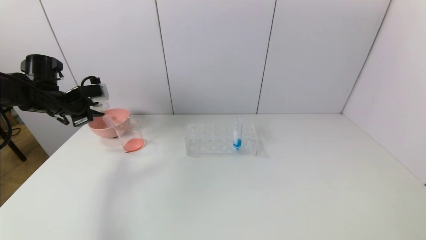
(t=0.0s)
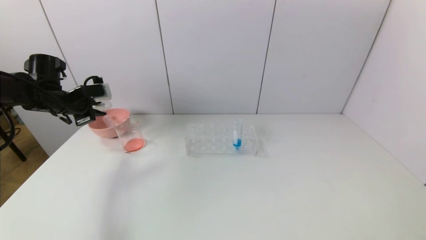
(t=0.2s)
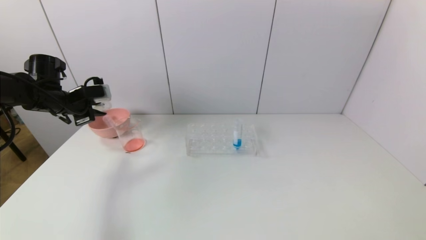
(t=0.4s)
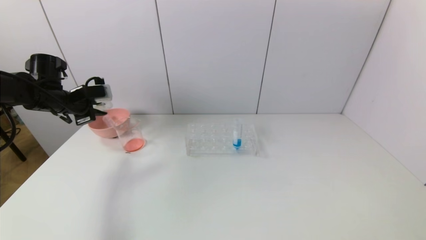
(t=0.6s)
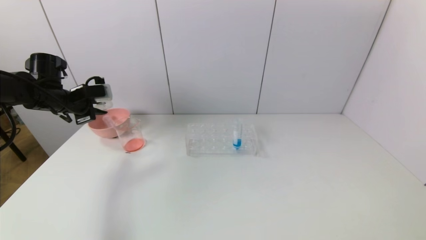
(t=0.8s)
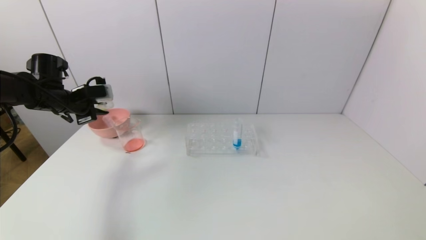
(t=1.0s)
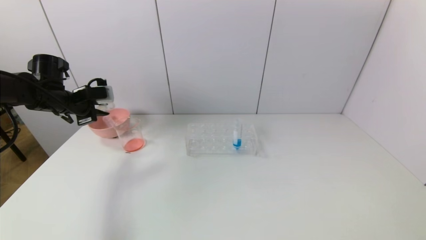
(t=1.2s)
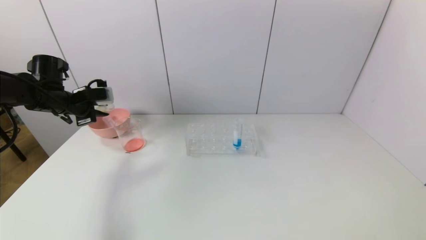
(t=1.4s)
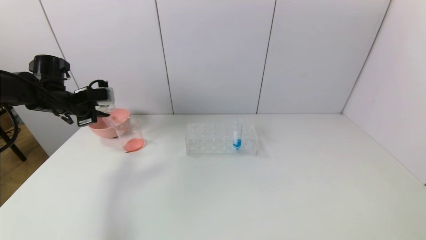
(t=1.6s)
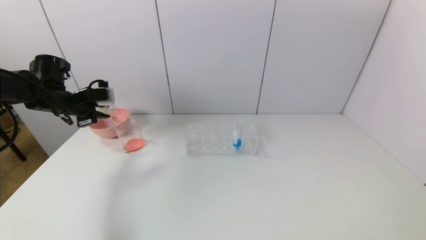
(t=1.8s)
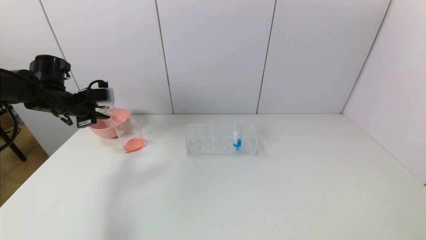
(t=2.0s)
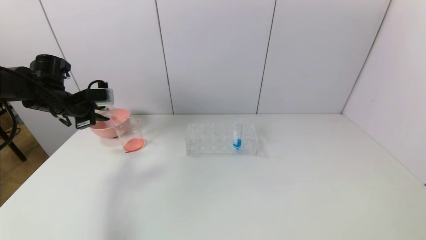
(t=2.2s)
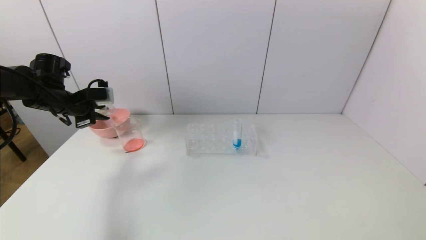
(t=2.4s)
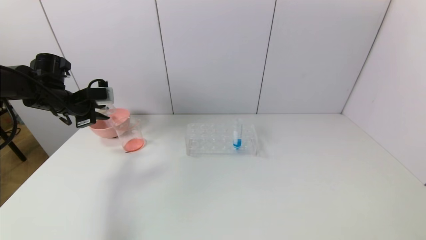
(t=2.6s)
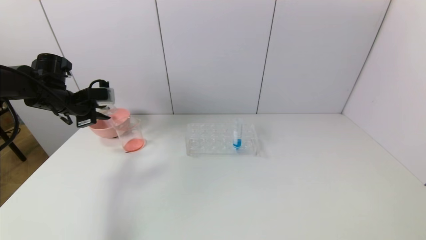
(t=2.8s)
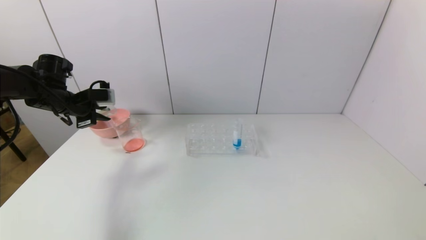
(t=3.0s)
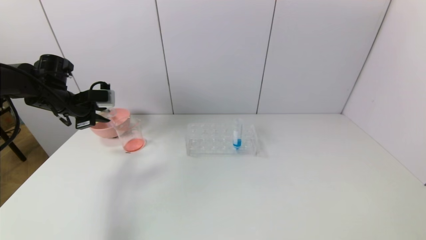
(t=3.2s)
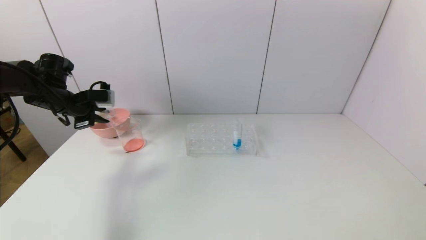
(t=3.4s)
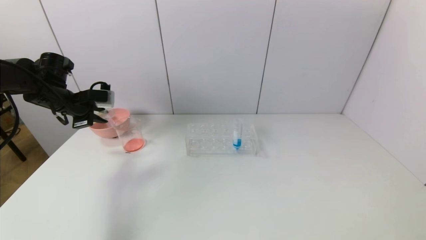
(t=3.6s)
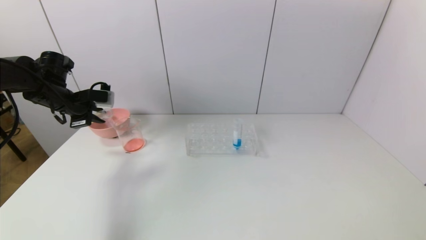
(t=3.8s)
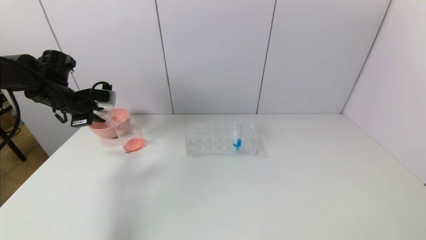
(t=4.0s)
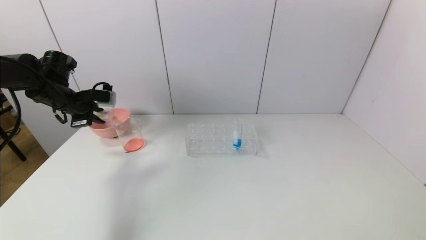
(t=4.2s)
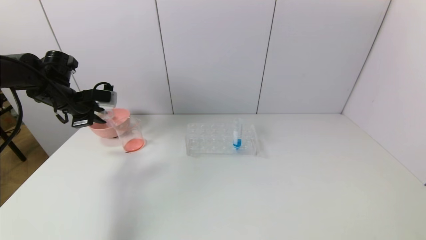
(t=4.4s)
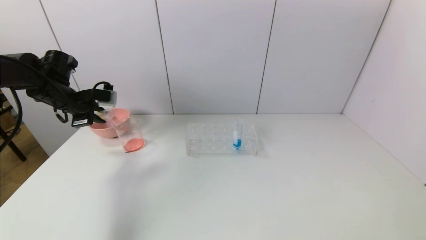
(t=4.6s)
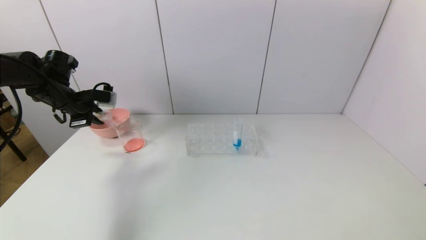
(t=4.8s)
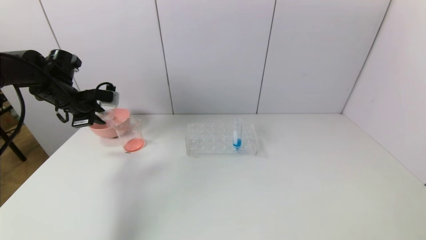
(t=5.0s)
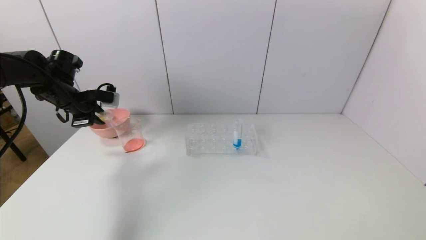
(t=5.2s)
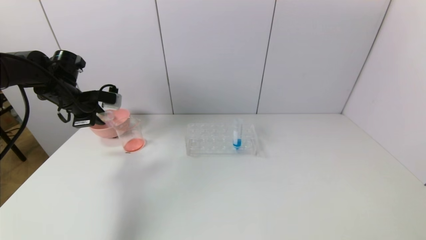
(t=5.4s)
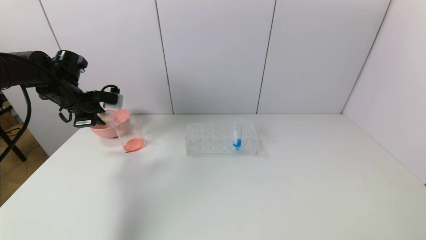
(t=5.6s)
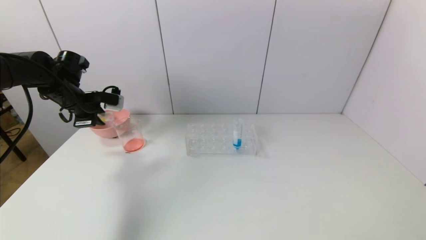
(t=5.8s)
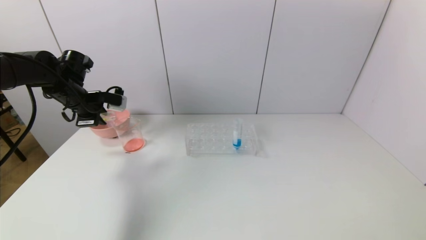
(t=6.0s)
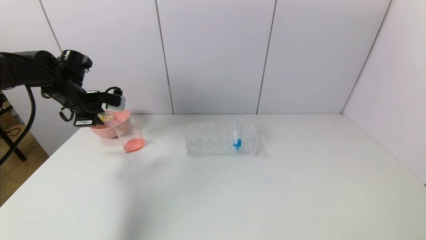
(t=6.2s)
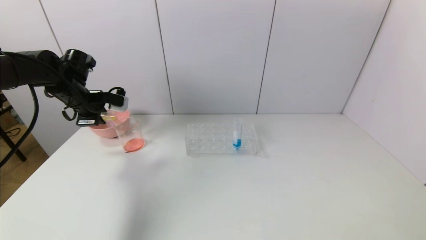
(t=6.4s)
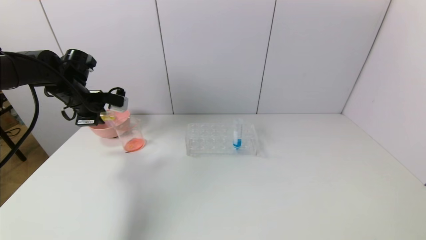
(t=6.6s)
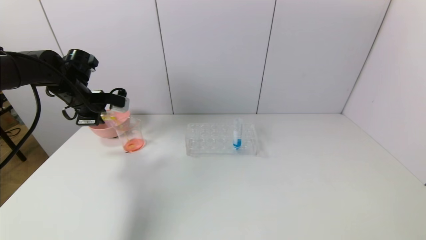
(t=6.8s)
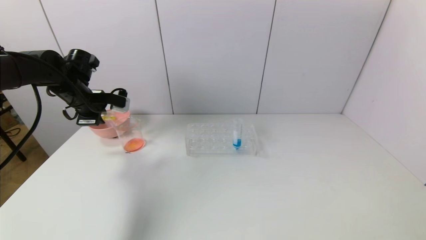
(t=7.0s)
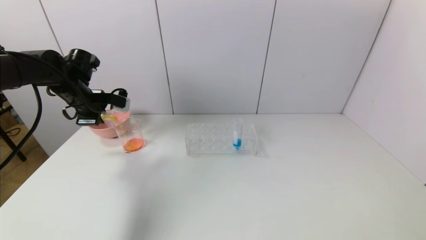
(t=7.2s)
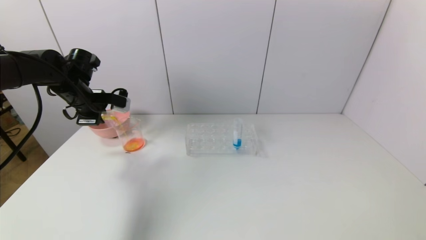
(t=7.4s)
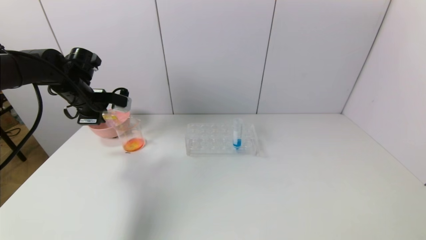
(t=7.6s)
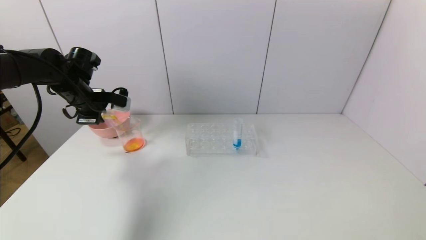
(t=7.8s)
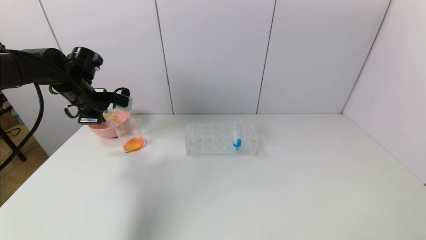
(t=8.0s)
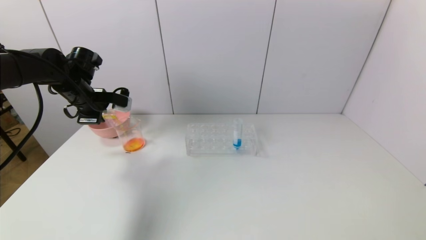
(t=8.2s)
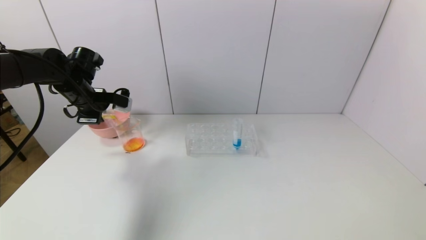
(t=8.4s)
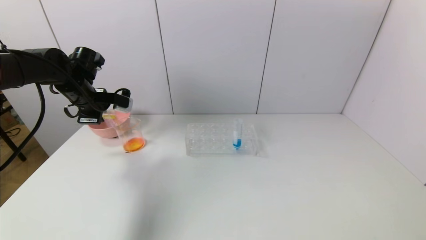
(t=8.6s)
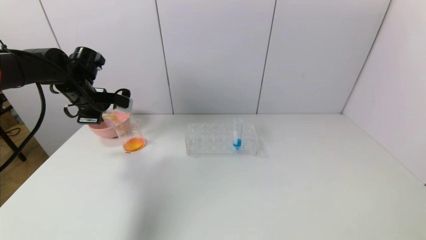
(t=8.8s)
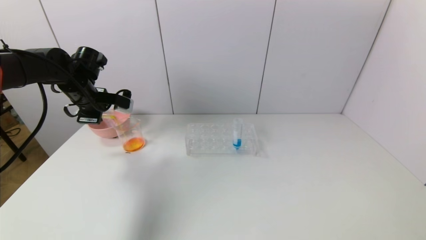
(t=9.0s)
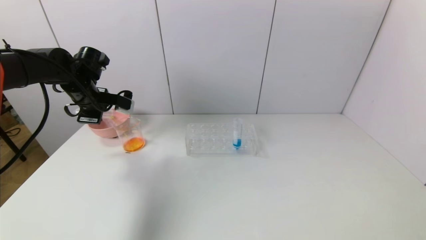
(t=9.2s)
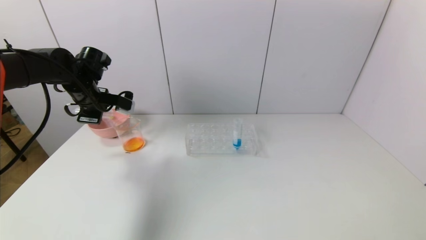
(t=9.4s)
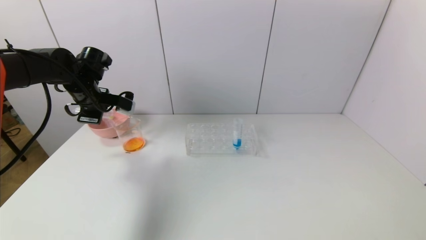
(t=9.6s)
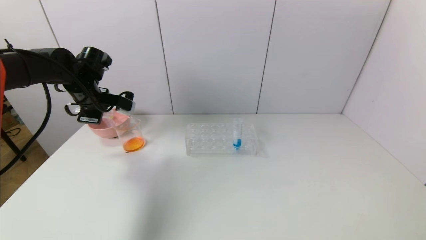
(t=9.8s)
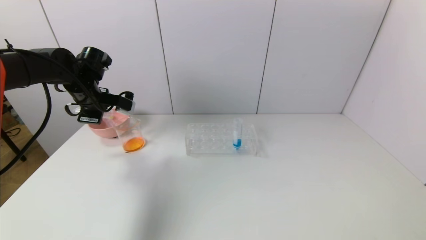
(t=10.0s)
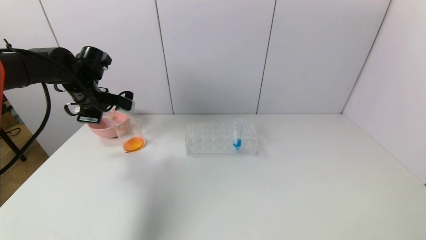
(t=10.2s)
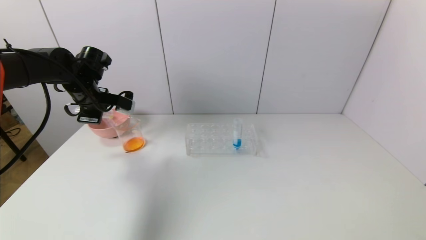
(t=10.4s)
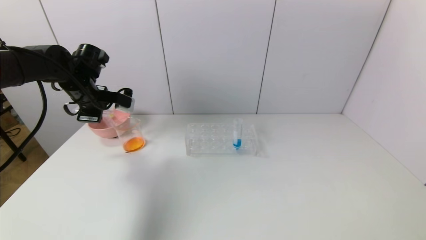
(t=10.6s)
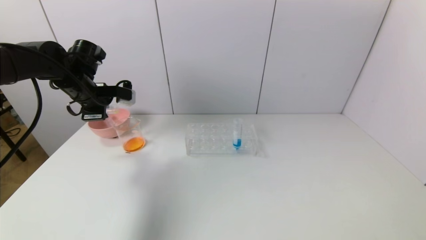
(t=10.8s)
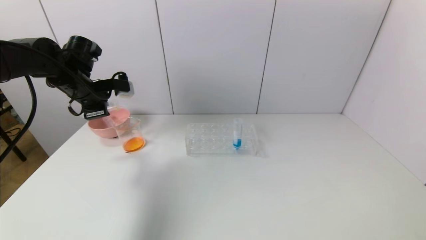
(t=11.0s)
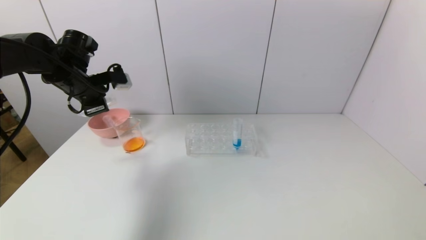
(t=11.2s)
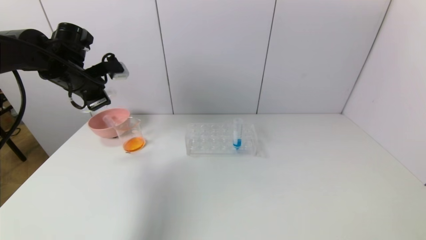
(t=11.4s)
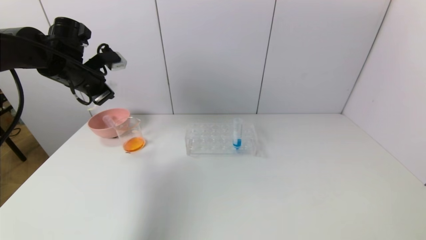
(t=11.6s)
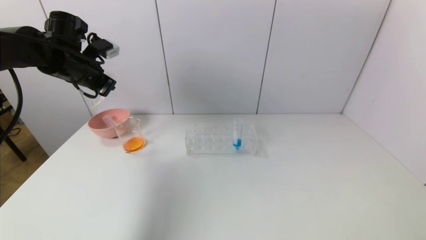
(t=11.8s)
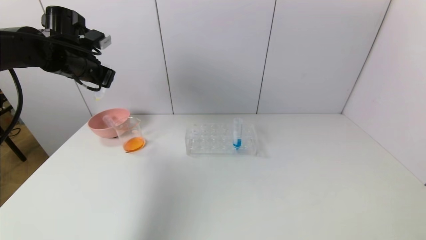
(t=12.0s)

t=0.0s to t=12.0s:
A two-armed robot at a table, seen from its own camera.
Task of the whole recording: pick up the test tube with yellow pigment and the test tube with red pigment by grippers and pour them into the beaker.
Step, t=0.0s to t=10.6s: Pour the yellow reagent into the graduated cylinder with the left gripper.
t=0.0s to t=4.4s: There are only small adjustments of the grippers.
t=4.4s to t=7.6s: The grippers stay close to where they were, moving slightly.
t=7.6s to t=9.0s: The grippers move only a little.
t=9.0s to t=10.4s: Both grippers stay about where they are.
t=10.4s to t=12.0s: The left gripper shifts about 5 cm upward.

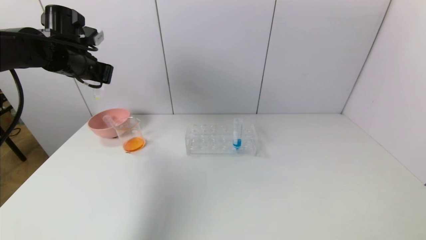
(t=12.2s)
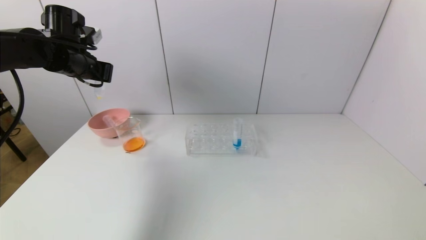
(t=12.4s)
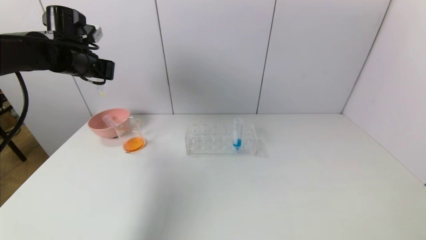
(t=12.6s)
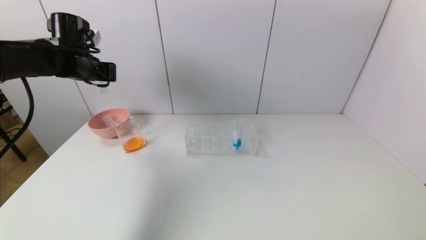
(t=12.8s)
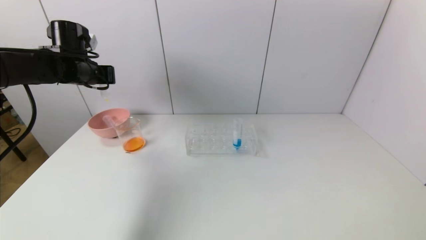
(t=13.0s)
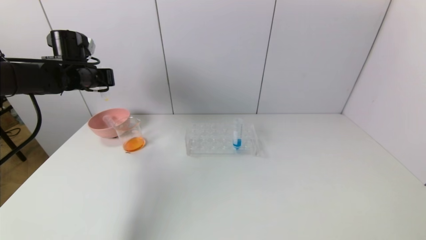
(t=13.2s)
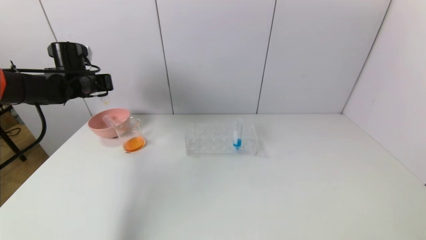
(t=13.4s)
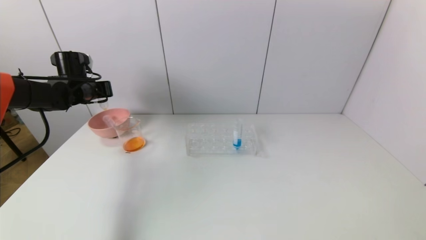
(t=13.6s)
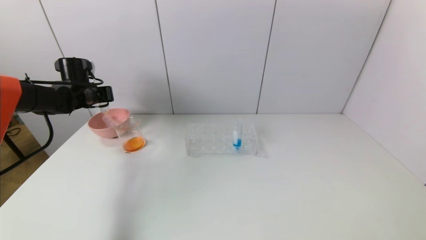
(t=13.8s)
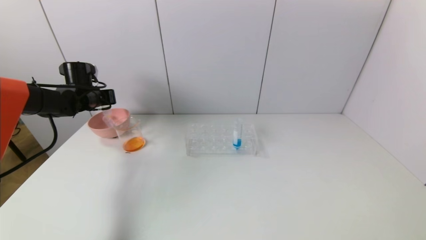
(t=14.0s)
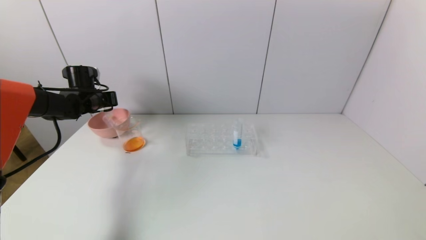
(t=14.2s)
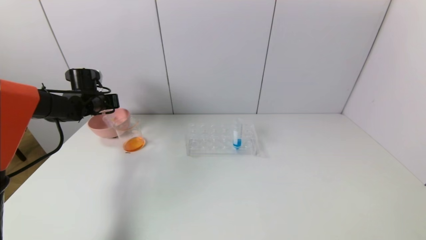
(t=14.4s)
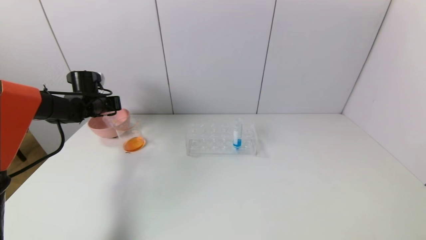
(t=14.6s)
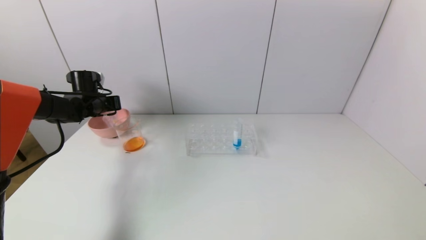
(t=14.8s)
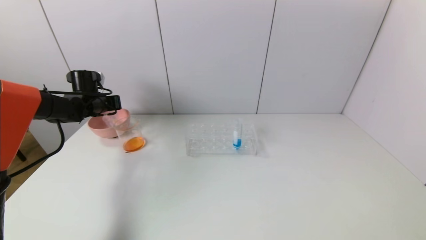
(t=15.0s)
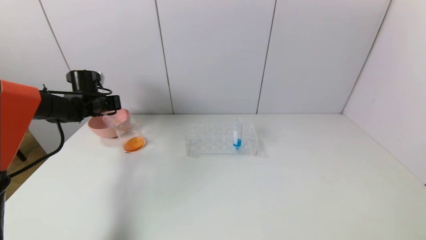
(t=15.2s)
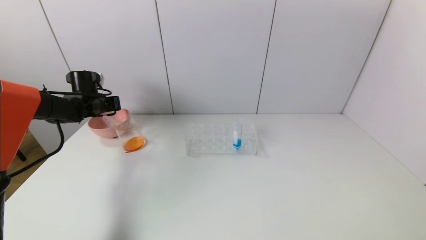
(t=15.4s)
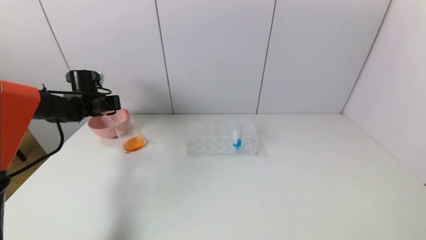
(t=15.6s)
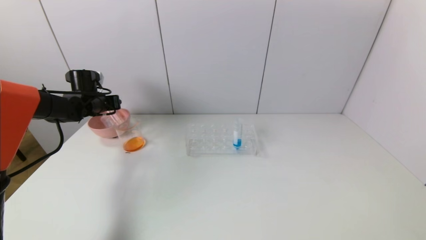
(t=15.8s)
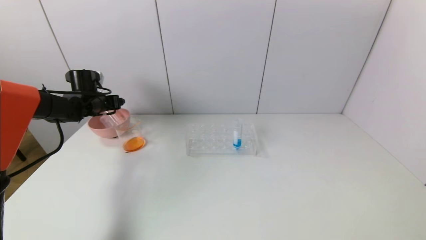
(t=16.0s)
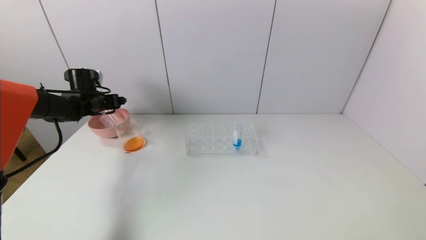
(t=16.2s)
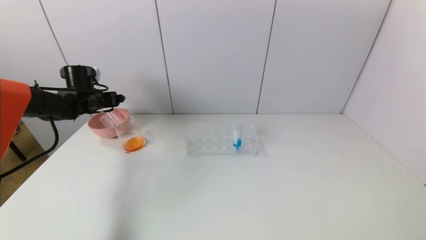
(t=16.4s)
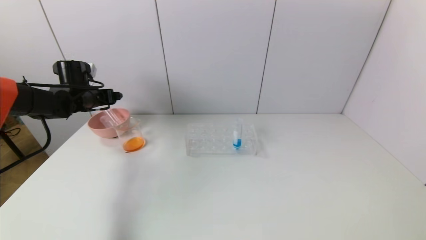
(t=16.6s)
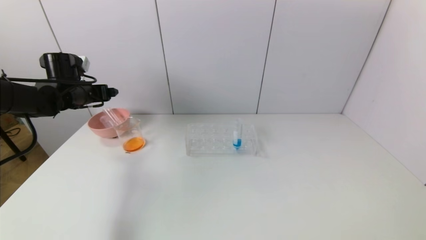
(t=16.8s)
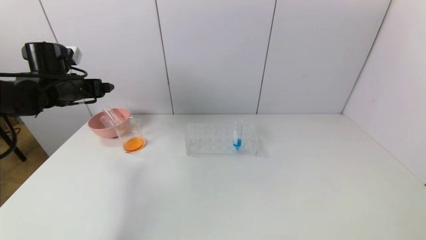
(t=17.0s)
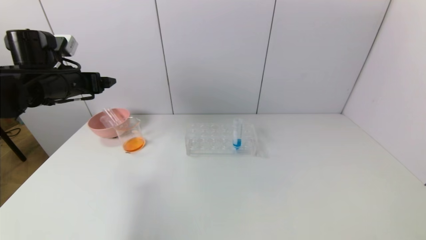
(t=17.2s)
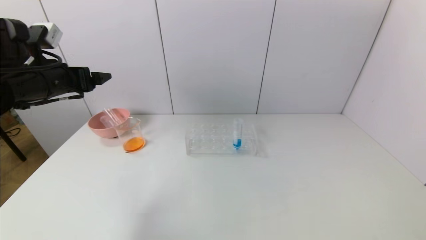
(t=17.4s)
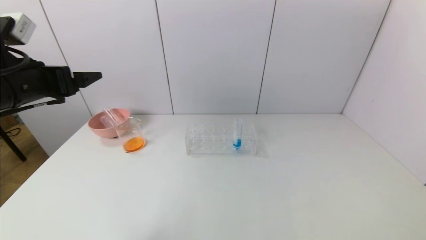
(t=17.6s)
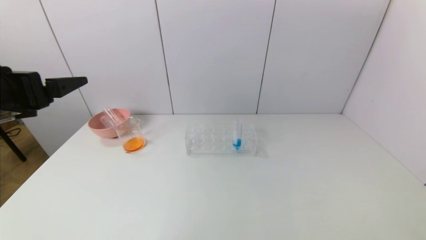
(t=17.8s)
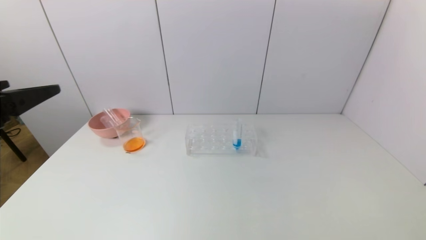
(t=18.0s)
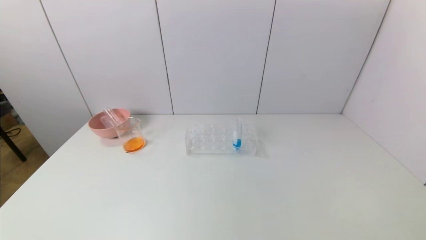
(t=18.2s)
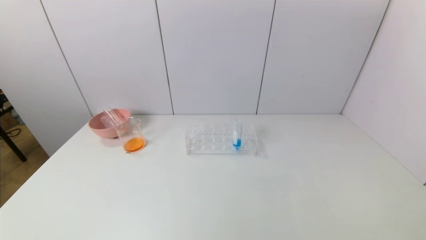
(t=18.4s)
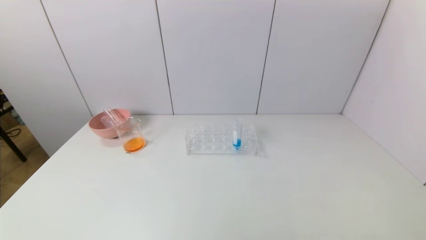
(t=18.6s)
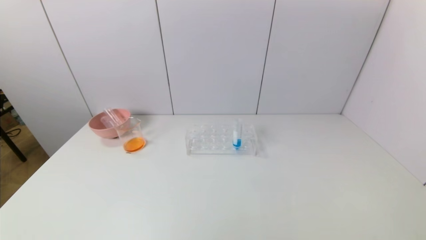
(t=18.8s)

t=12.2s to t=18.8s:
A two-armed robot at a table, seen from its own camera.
Task of the whole recording: pick up the test tube with yellow pigment and the test tube with red pigment by grippers and pour them into the beaker.
Step, t=12.2s to t=15.8s: Place the test tube into the pink bowl with the left gripper.
t=12.2s to t=13.8s: The left gripper travels downward and forward by some 10 cm.
t=13.8s to t=15.4s: There are only small adjustments of the grippers.
t=15.4s to t=17.2s: The left gripper travels backward and upward by approximately 15 cm, and opens its fingers.
t=17.2s to t=18.8s: The left gripper heads backward, covering roughly 40 cm.
